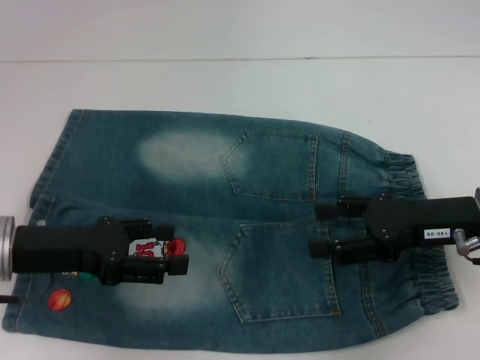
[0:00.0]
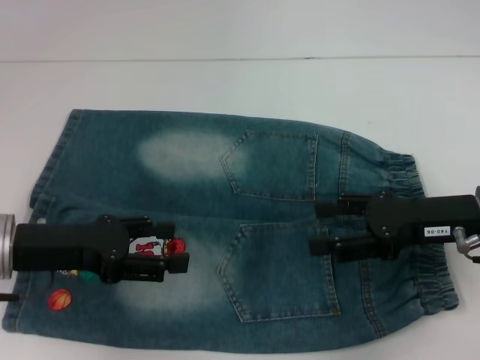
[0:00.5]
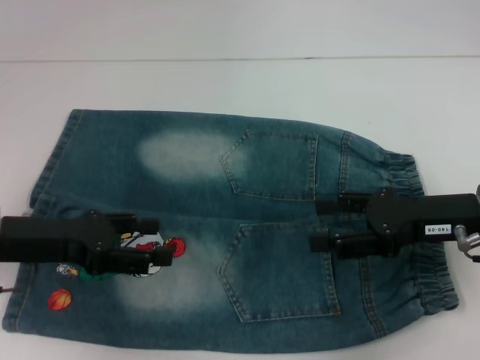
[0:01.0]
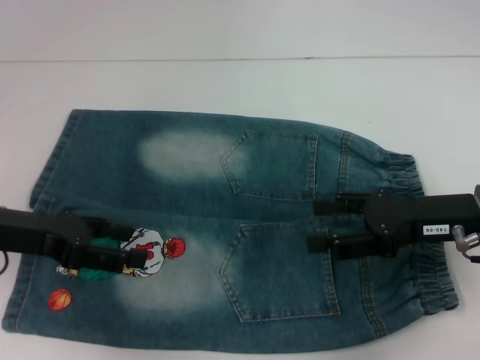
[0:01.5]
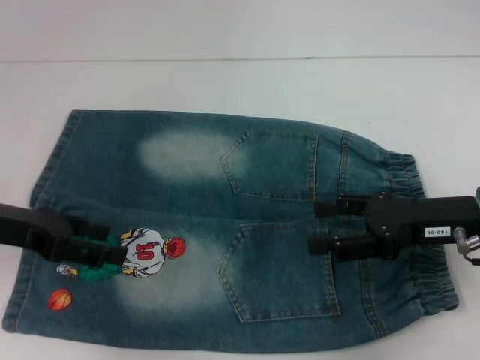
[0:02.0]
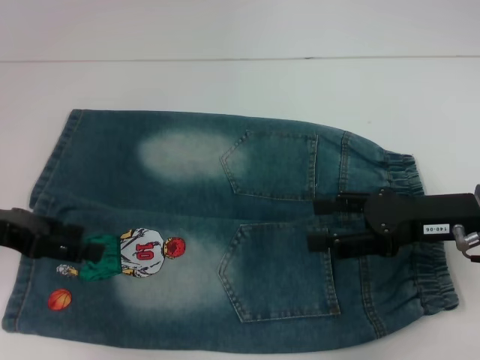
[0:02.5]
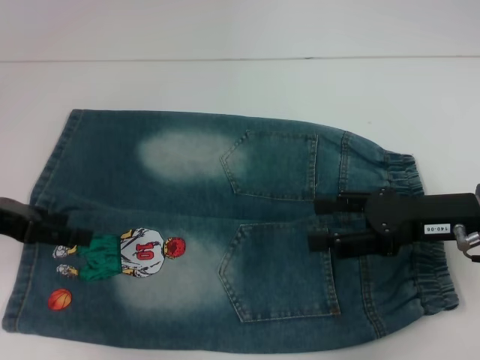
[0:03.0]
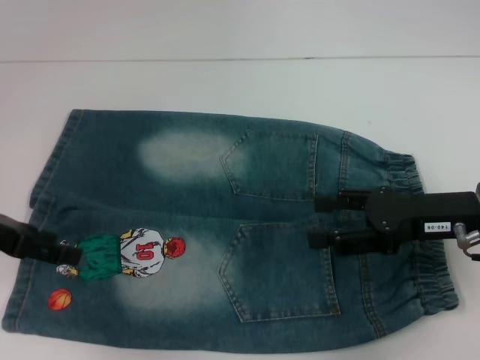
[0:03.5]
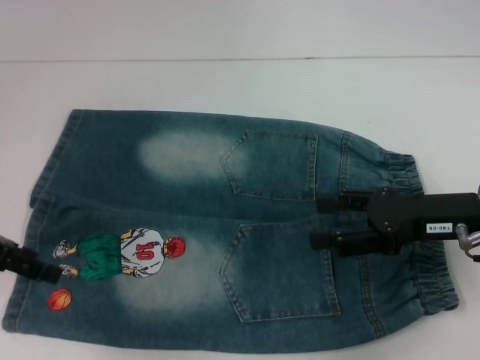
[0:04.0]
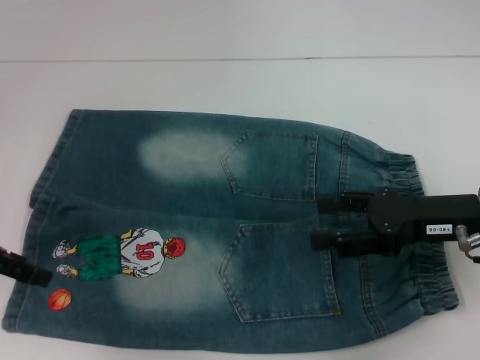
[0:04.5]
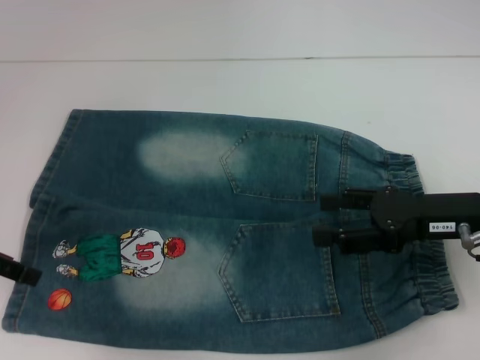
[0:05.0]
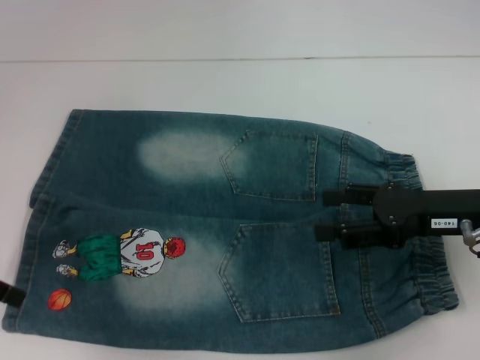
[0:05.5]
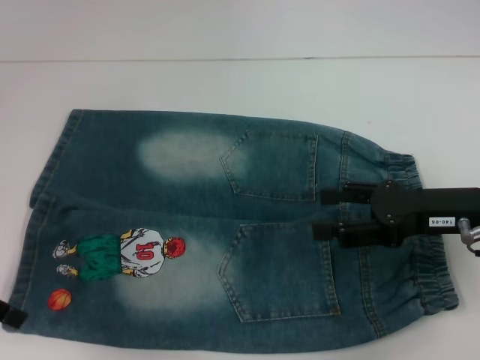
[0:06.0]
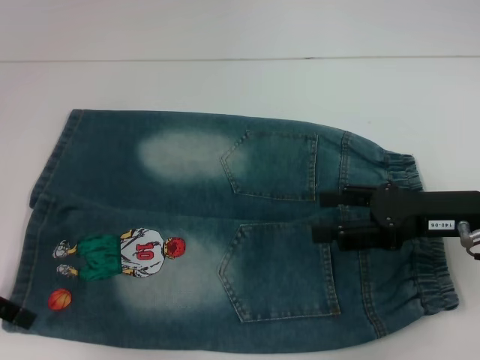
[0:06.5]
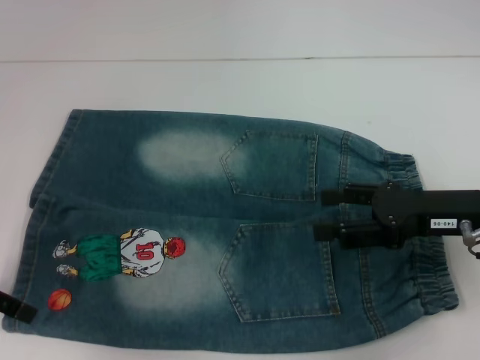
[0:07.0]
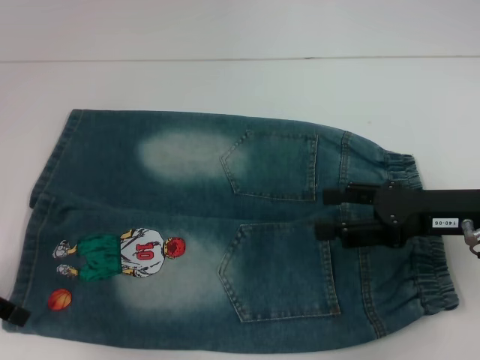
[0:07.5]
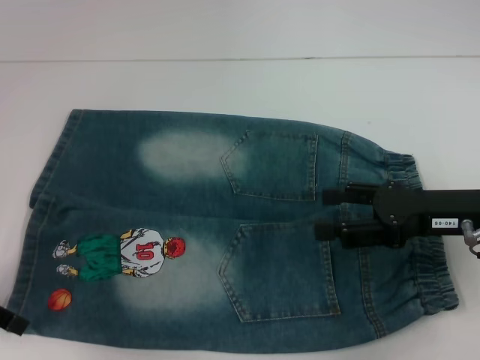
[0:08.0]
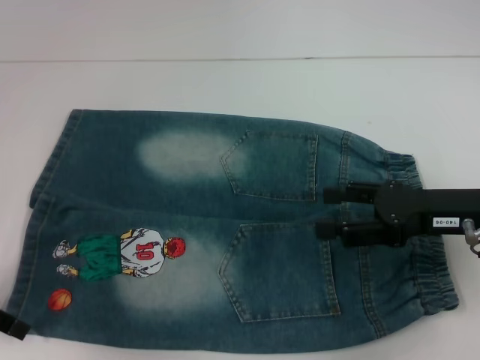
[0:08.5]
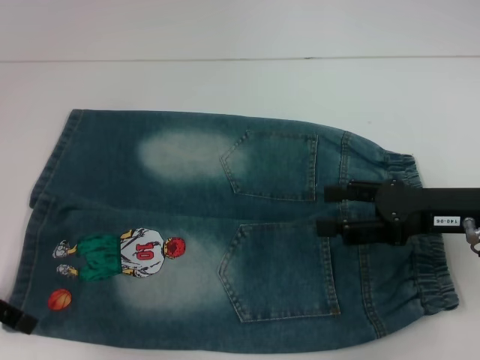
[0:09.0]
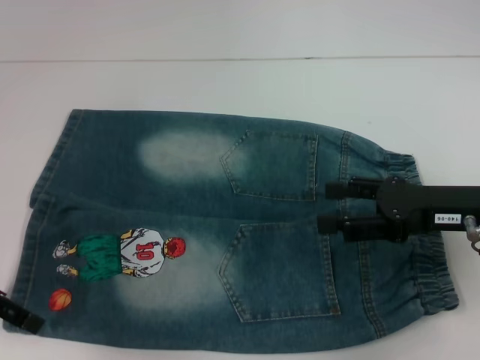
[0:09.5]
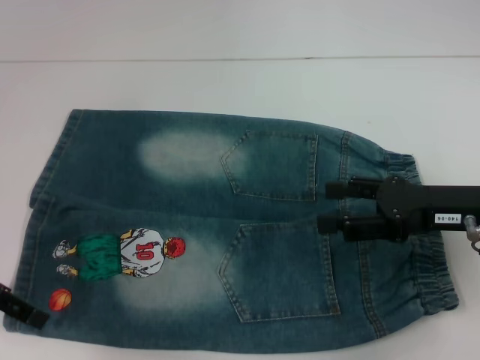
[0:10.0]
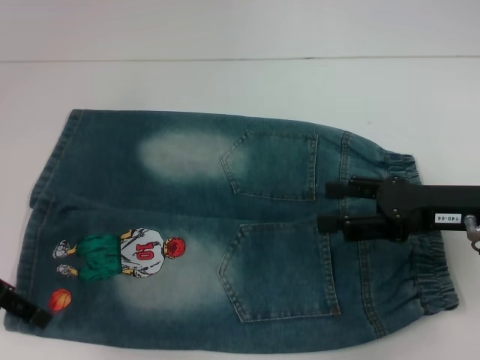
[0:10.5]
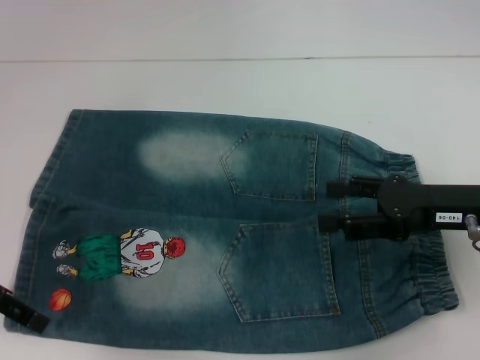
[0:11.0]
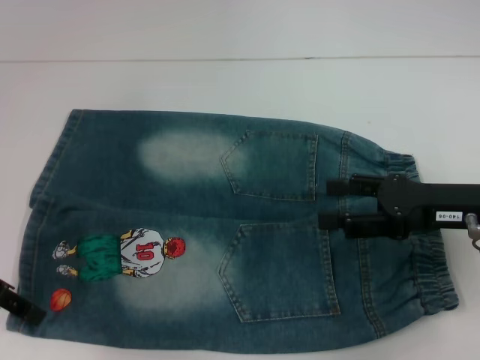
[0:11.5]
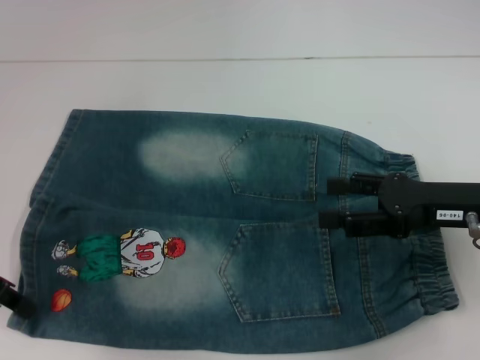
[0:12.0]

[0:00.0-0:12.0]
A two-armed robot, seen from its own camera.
0:00.0 to 0:02.0: The left gripper shifts by some 5 cm.
0:04.0 to 0:06.0: The grippers stay close to where they were, moving slightly.
0:08.0 to 0:10.0: The grippers move only a little.
0:10.0 to 0:12.0: The left gripper closes its fingers.

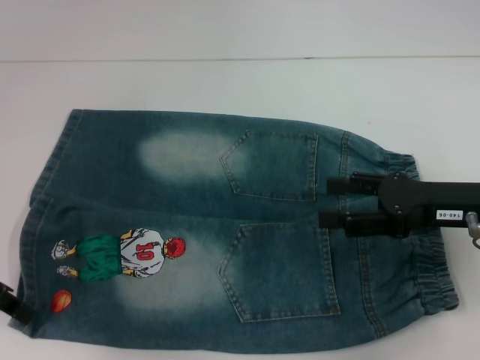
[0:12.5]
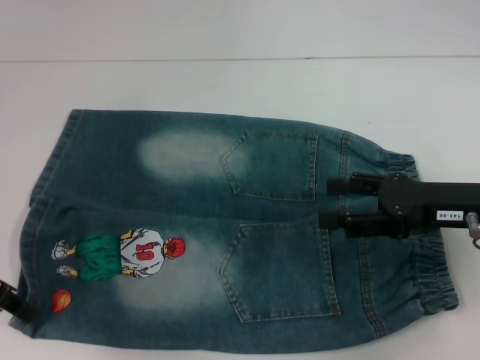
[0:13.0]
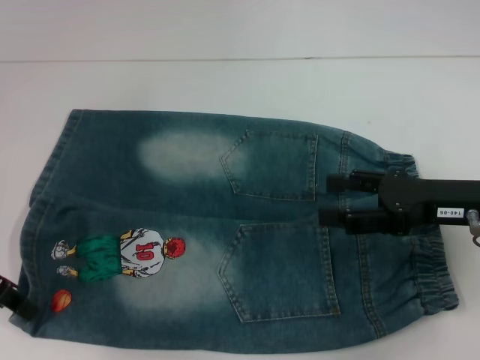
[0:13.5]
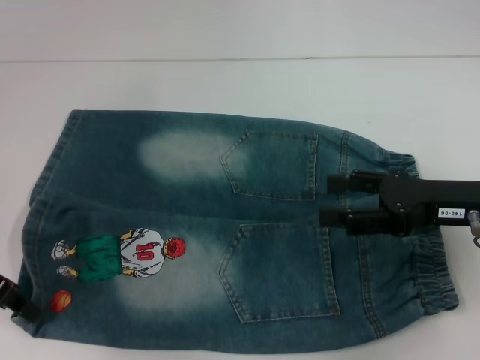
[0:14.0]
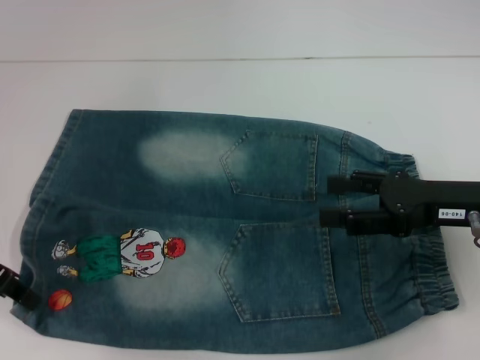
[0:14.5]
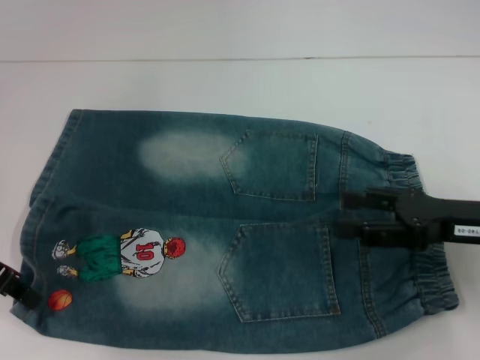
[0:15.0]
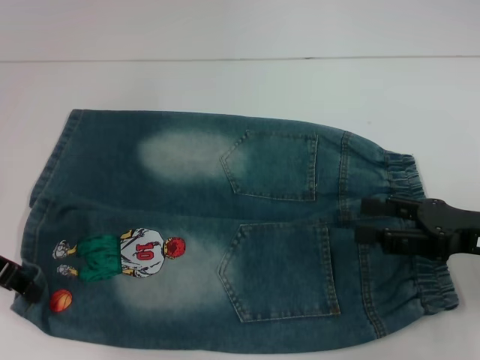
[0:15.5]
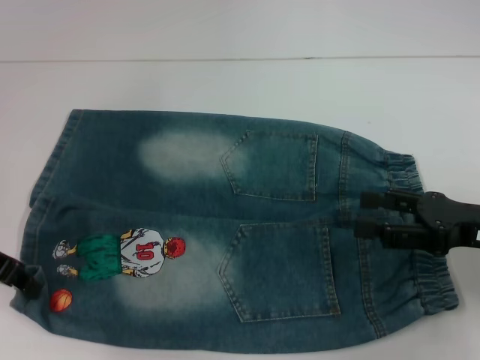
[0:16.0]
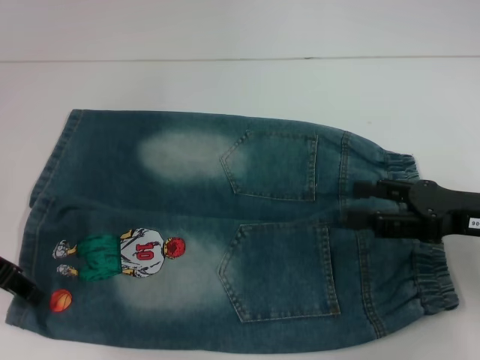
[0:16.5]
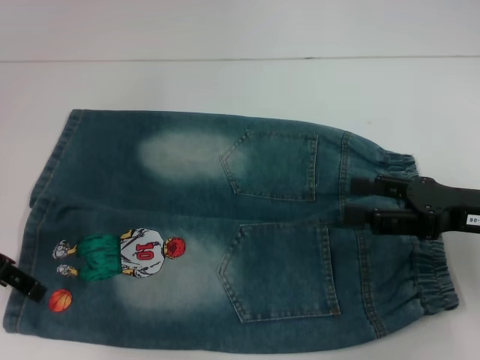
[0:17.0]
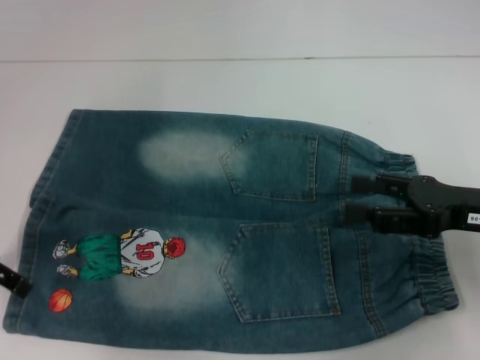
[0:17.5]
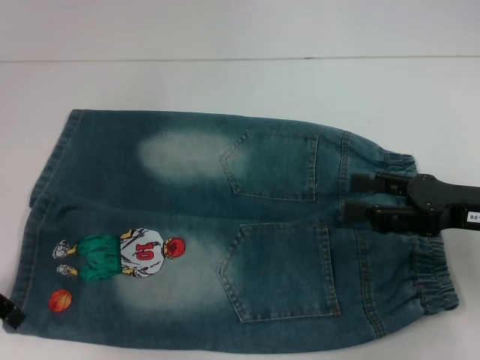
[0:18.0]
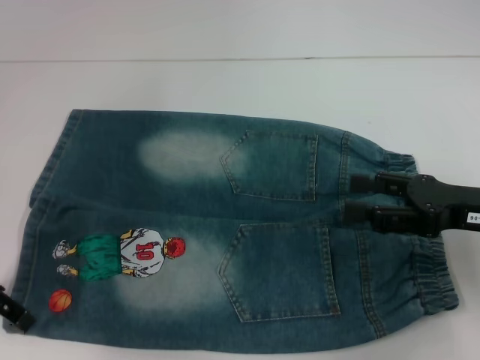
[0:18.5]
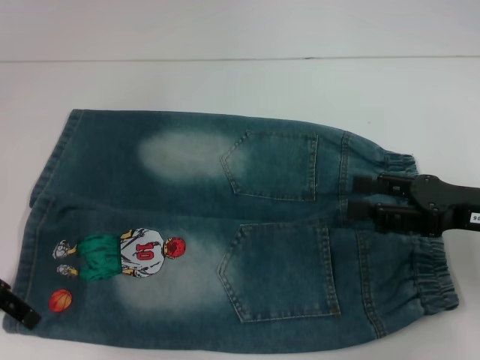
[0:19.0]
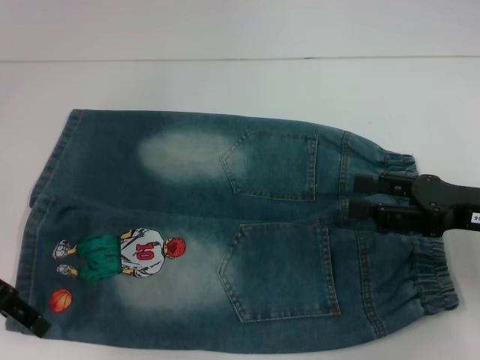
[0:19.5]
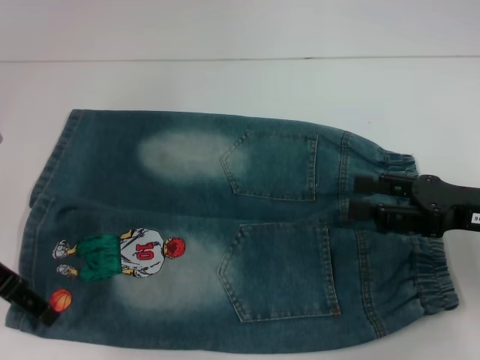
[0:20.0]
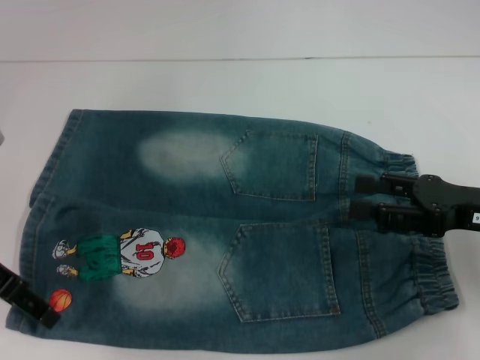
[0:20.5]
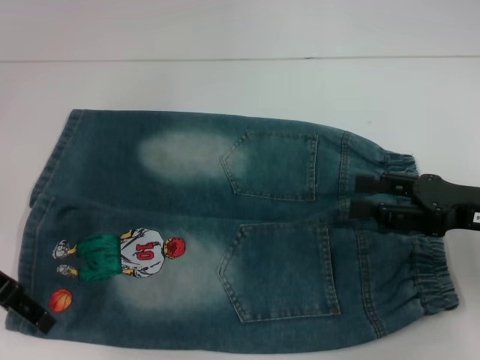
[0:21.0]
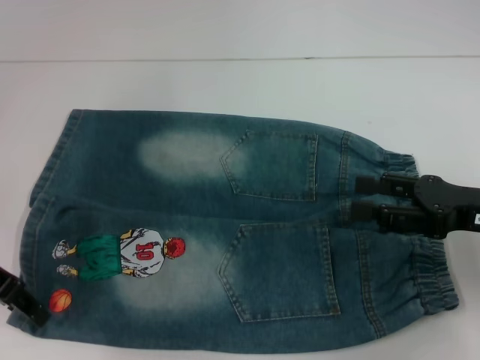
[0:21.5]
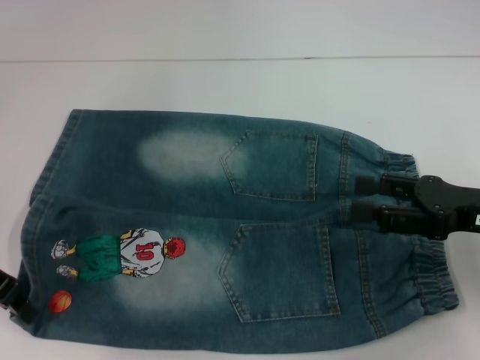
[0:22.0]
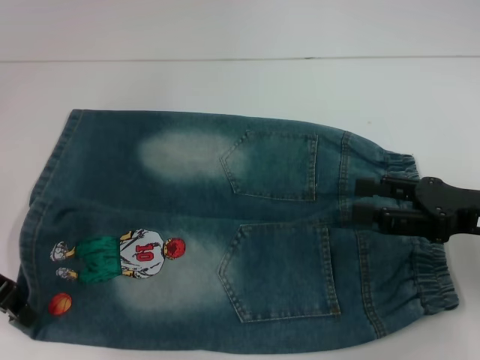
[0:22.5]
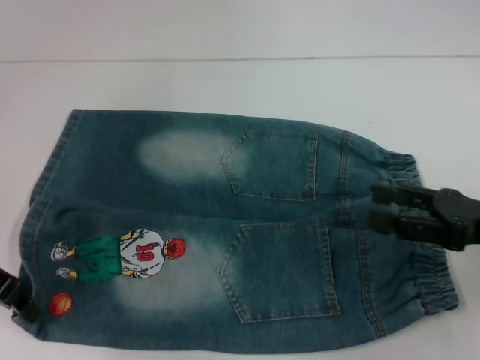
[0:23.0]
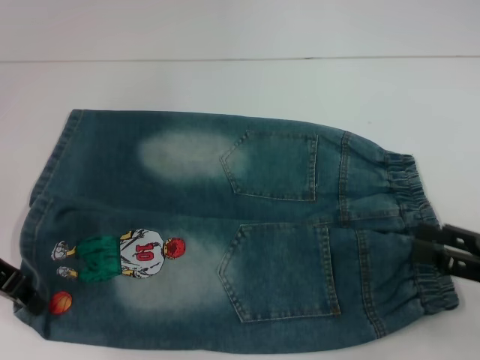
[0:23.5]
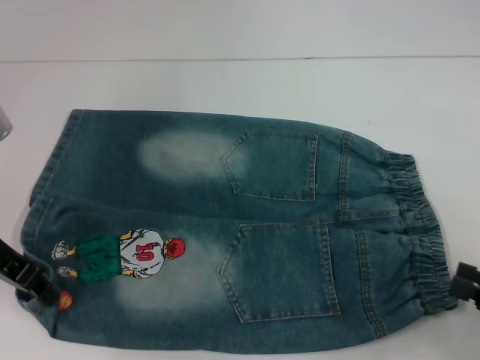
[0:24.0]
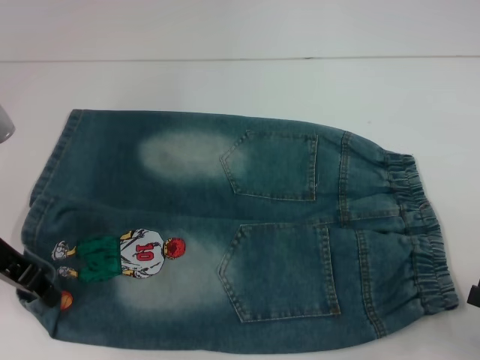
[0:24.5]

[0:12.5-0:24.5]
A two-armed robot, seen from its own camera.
0:12.5 to 0:16.5: The grippers stay close to where they were, moving slightly.
0:16.5 to 0:18.5: The left gripper opens.
0:18.5 to 0:20.5: The grippers stay close to where they were, moving slightly.
0:20.5 to 0:22.5: The left gripper closes.
0:22.5 to 0:24.5: The right gripper travels backward, to the right and downward by approximately 15 cm.

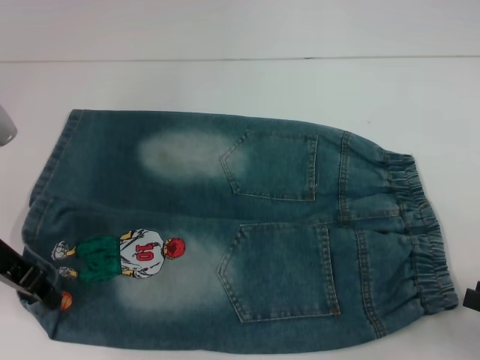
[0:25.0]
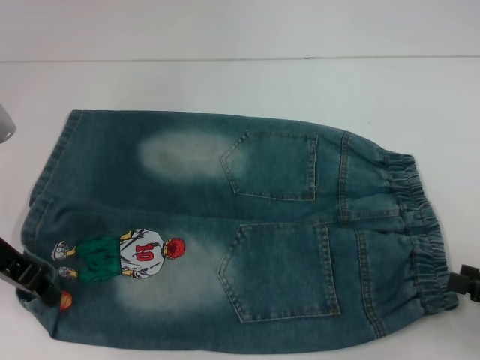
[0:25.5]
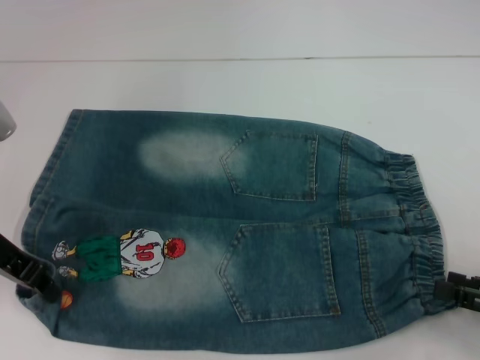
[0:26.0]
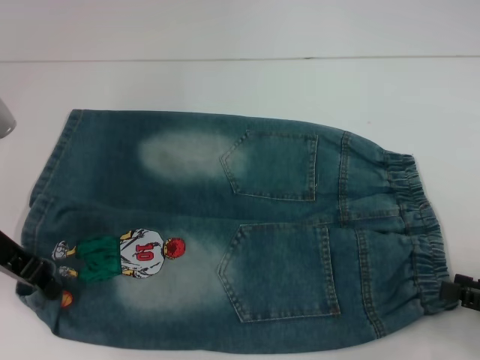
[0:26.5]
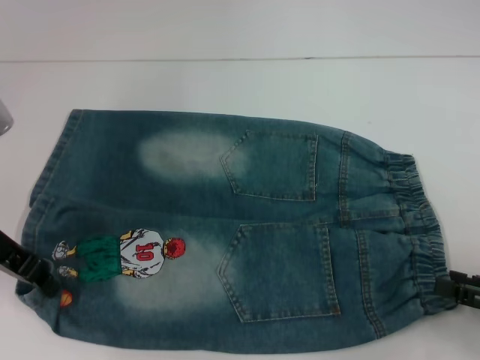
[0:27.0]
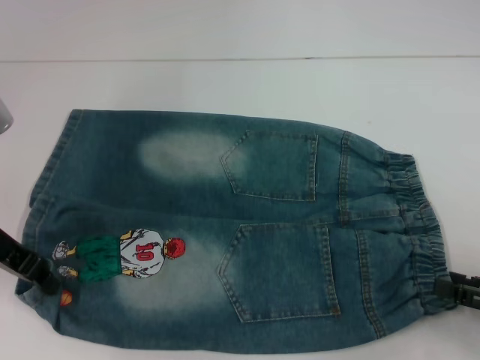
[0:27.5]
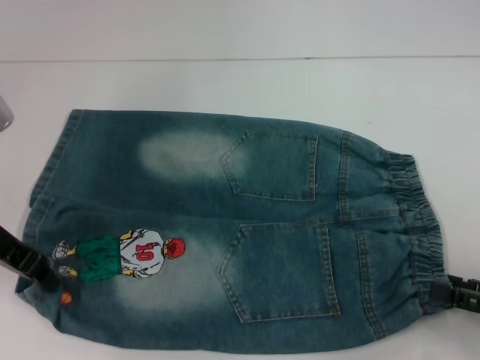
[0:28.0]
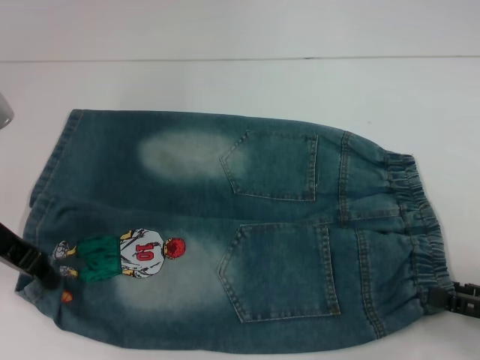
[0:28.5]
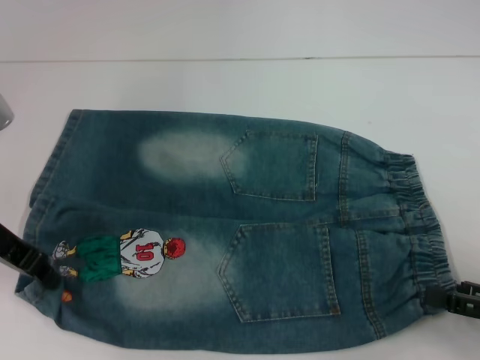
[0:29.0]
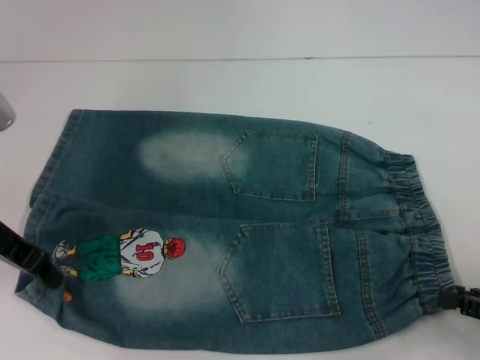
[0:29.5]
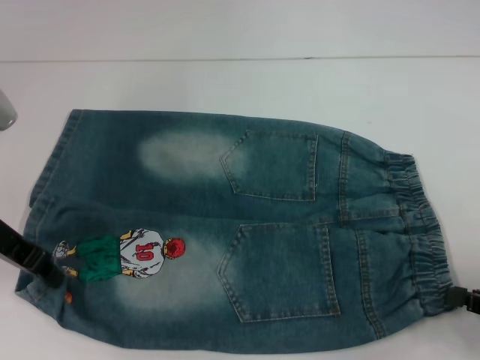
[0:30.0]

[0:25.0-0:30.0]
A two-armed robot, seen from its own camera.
0:25.0 to 0:27.5: The grippers move only a little.
